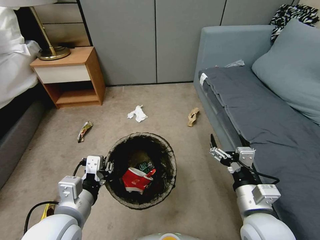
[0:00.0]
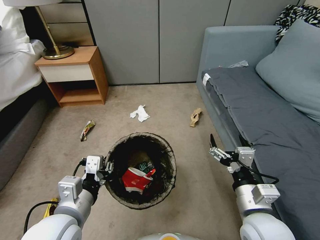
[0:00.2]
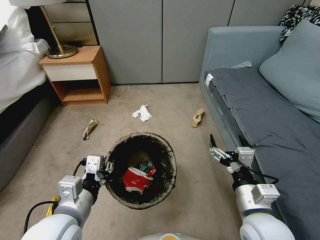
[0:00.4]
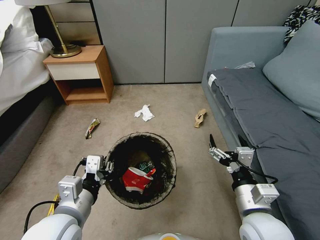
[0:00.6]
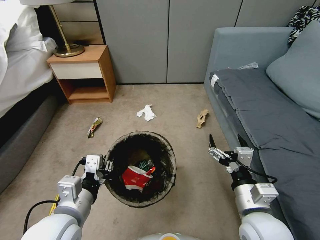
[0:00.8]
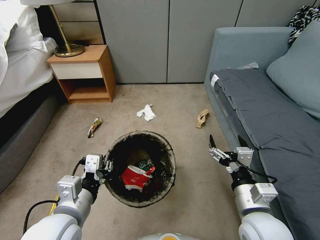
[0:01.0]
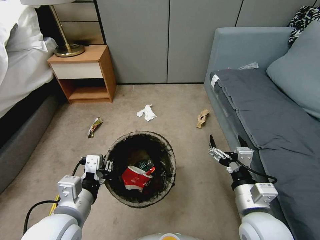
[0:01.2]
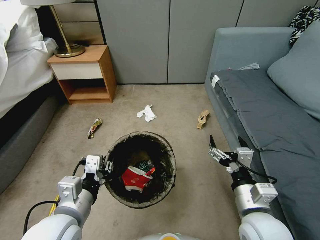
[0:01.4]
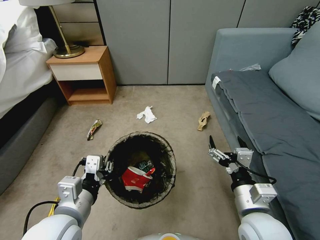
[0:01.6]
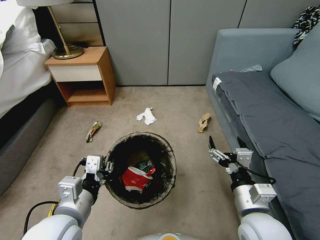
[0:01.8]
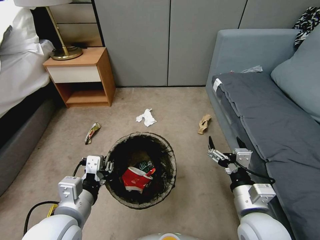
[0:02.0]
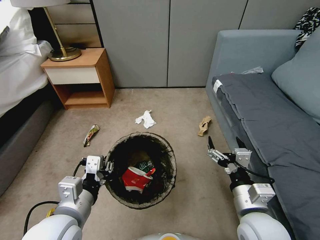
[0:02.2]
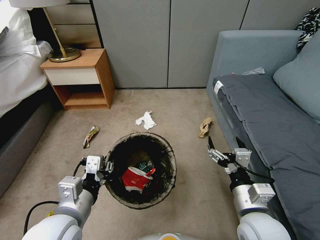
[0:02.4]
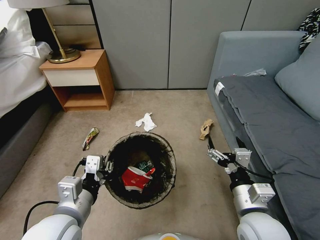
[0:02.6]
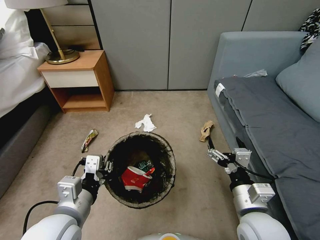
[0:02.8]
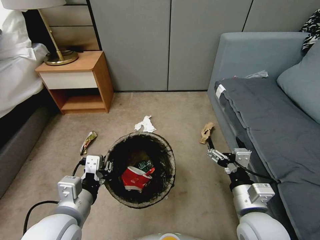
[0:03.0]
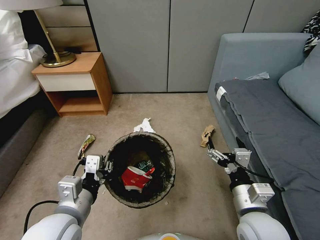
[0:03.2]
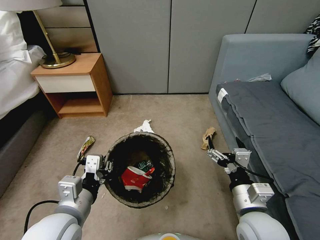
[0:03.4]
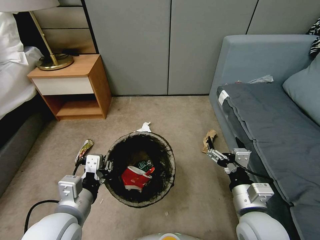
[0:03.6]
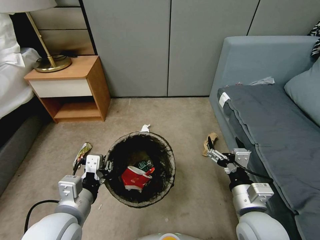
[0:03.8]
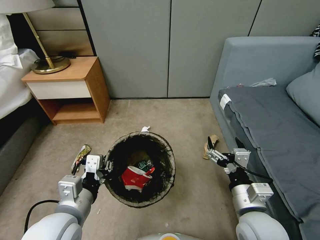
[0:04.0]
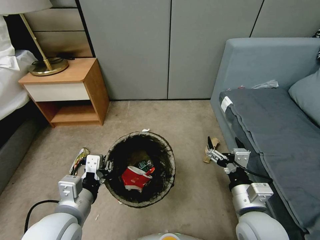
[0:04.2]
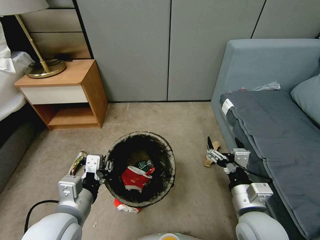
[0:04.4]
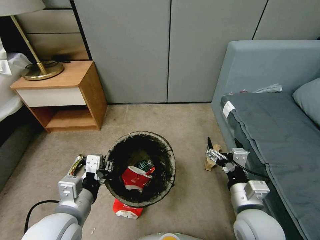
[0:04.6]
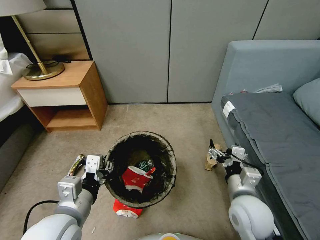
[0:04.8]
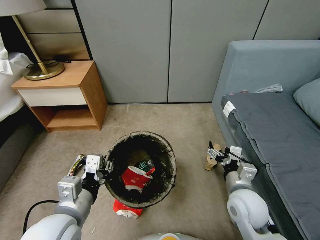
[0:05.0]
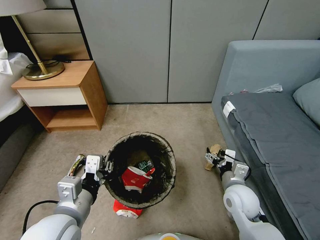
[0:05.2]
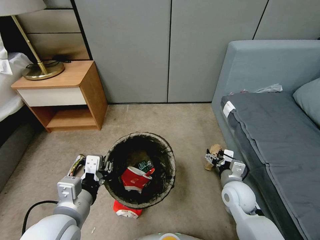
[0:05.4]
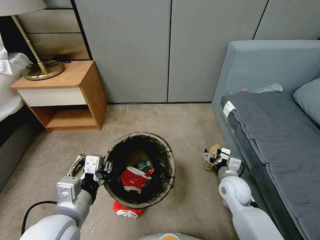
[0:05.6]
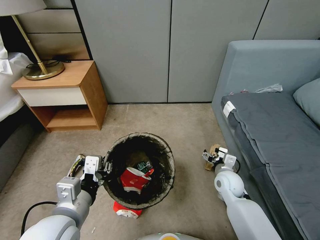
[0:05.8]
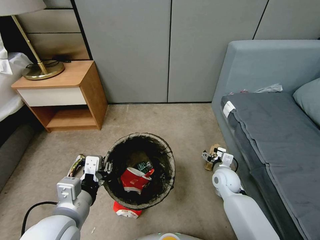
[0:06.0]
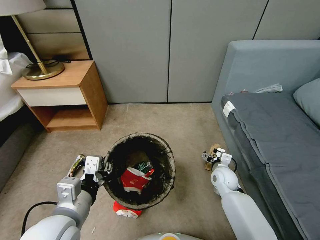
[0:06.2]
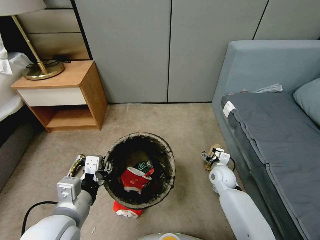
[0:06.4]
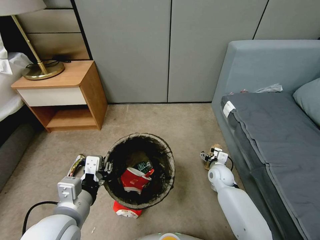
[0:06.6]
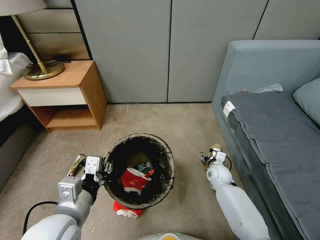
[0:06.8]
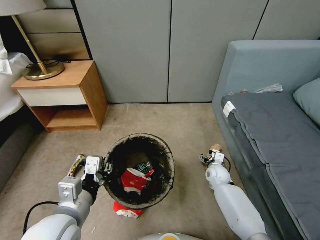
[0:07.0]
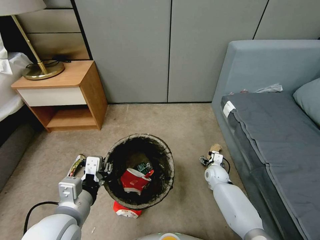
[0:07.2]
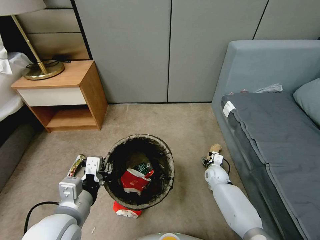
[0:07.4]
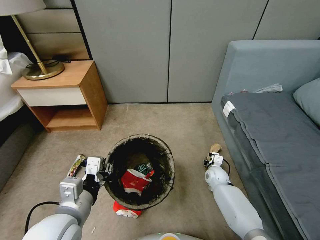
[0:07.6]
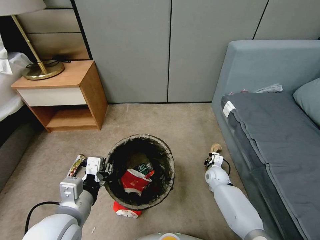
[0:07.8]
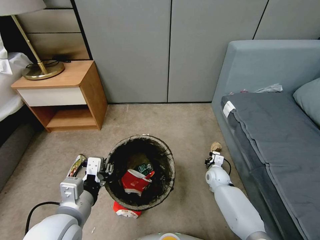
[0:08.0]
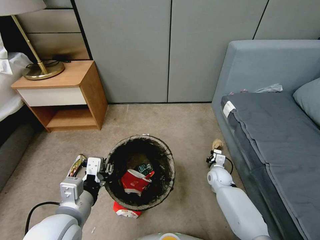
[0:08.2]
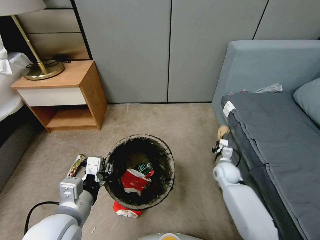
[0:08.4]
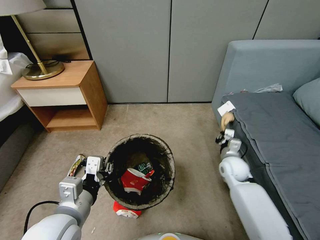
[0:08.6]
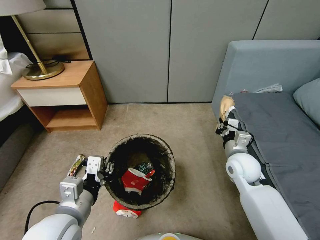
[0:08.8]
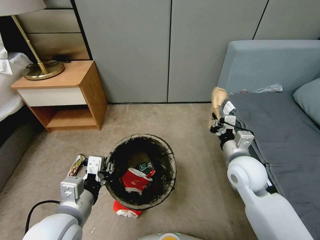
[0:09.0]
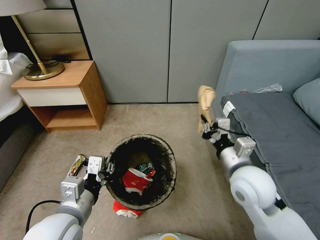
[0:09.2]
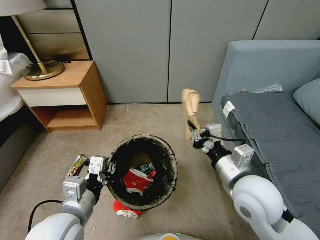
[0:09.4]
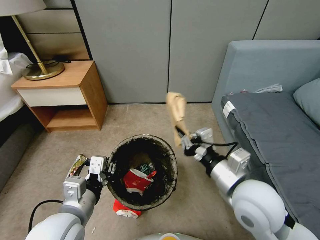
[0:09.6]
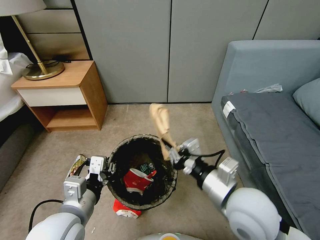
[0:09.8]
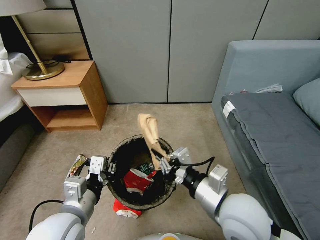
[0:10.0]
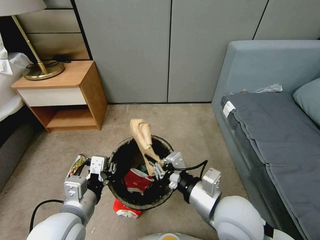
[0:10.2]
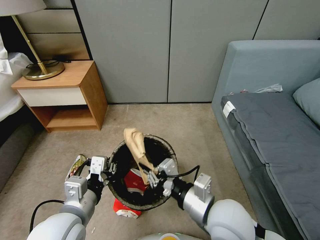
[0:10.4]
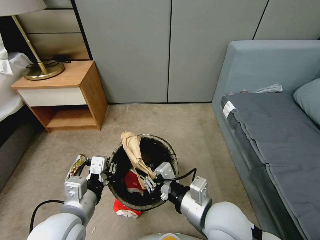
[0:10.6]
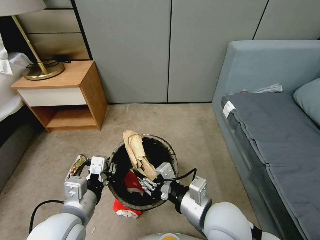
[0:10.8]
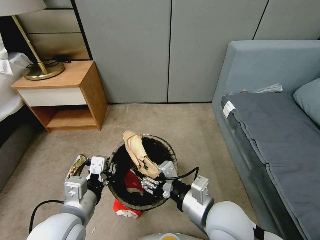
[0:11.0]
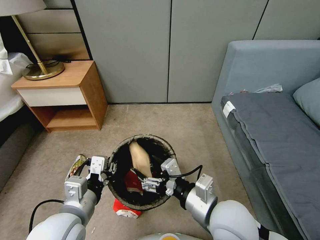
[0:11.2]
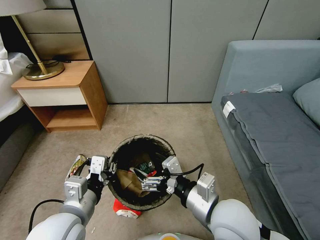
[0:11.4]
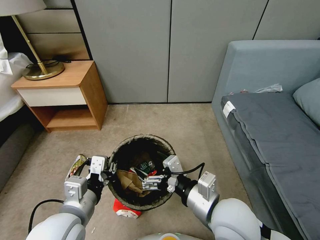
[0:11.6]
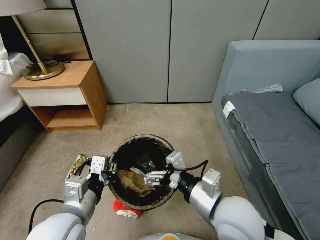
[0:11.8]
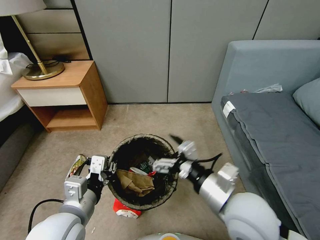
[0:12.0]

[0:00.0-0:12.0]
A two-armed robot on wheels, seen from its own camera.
Task of the whole recording: Pick up the trash bin, then pick up the garbage from the floor and place it into the trash bin.
0:01.6 to 0:03.0: Both grippers stay put.
0:04.4 to 0:06.0: The right gripper shifts about 20 cm forward and downward.
0:06.0 to 0:07.6: The right gripper is displaced downward and forward by roughly 15 cm, and closes.
0:07.6 to 0:09.0: The right gripper heads upward, covering roughly 30 cm, and closes.
0:09.0 to 0:10.4: The right gripper shifts roughly 15 cm backward and to the left.
0:10.4 to 0:12.0: The right gripper opens its fingers.

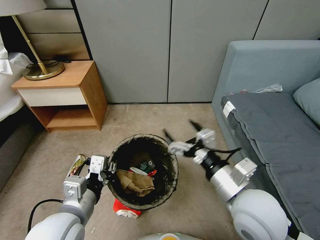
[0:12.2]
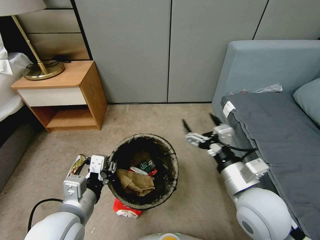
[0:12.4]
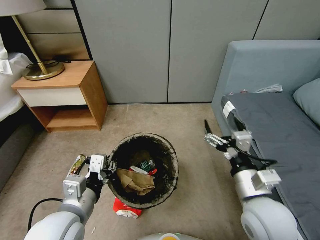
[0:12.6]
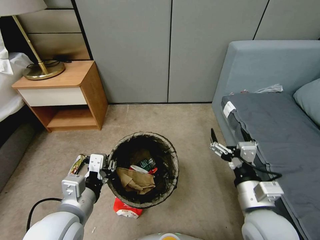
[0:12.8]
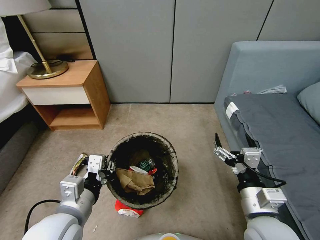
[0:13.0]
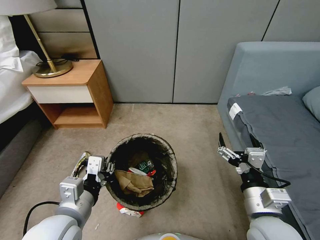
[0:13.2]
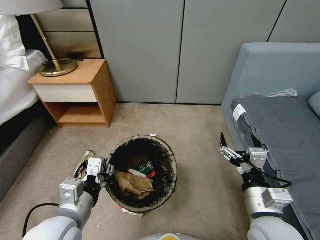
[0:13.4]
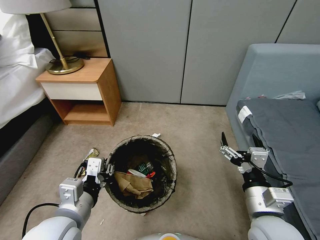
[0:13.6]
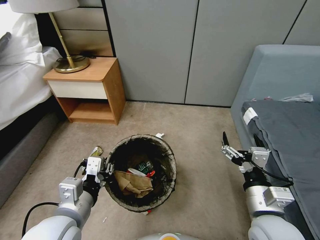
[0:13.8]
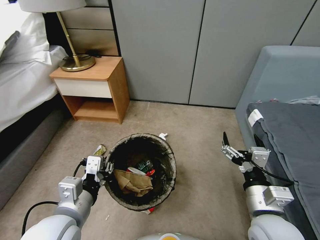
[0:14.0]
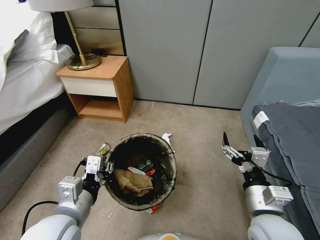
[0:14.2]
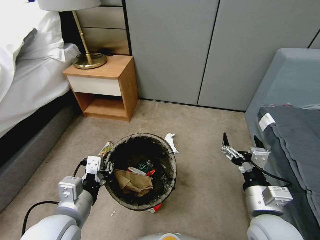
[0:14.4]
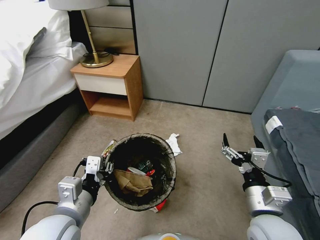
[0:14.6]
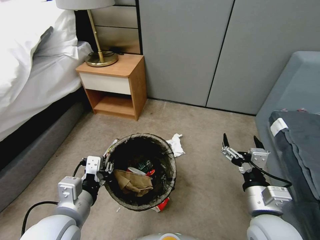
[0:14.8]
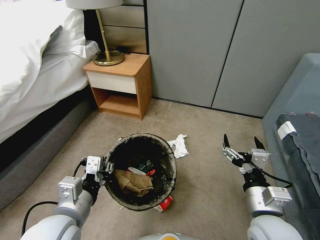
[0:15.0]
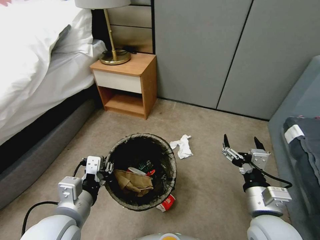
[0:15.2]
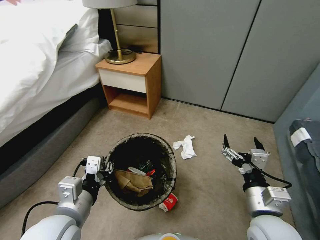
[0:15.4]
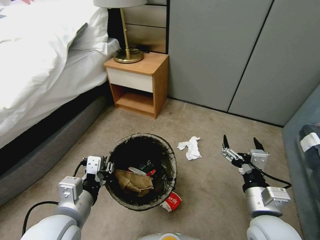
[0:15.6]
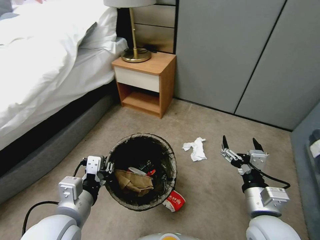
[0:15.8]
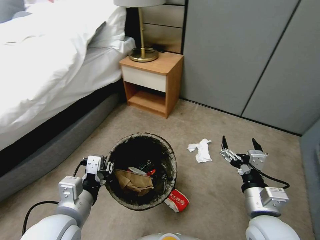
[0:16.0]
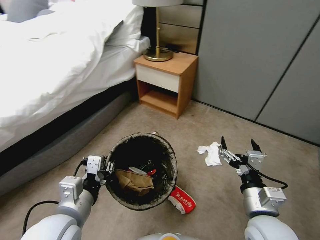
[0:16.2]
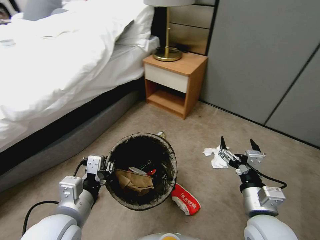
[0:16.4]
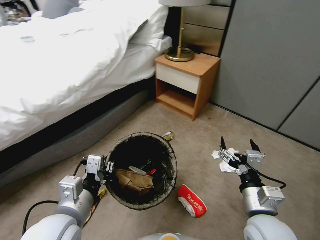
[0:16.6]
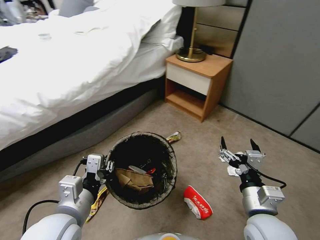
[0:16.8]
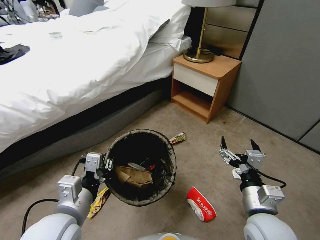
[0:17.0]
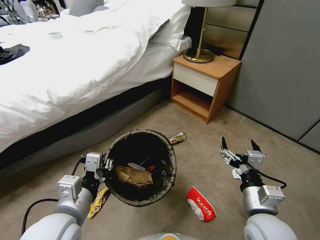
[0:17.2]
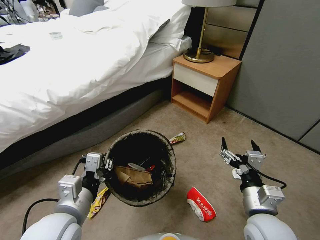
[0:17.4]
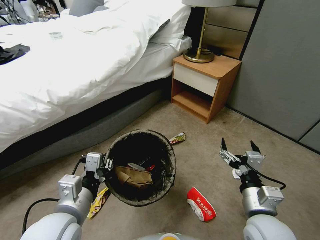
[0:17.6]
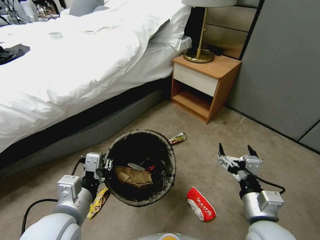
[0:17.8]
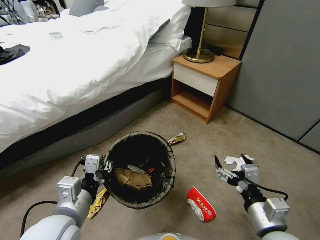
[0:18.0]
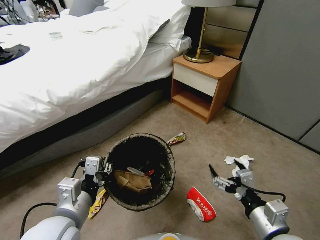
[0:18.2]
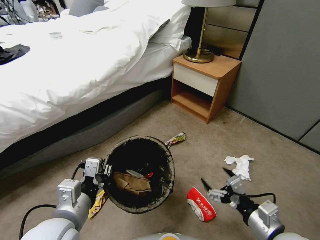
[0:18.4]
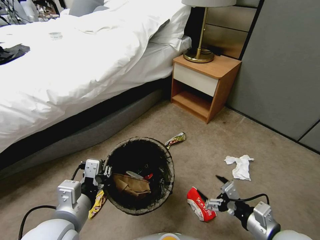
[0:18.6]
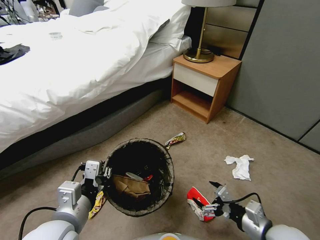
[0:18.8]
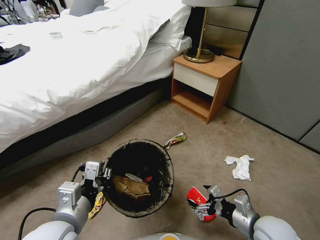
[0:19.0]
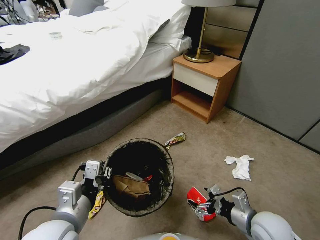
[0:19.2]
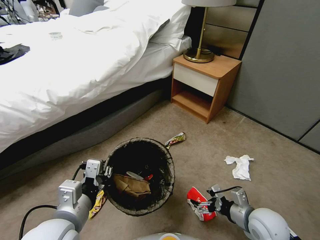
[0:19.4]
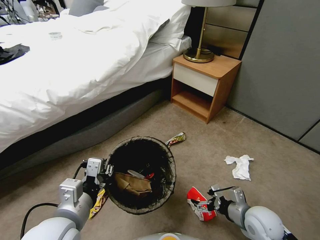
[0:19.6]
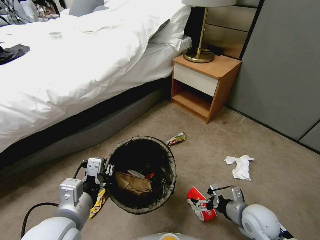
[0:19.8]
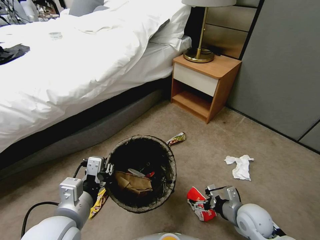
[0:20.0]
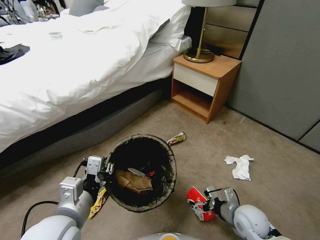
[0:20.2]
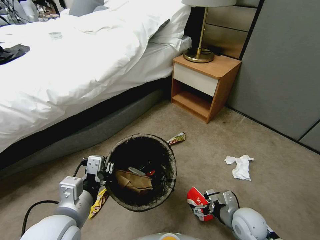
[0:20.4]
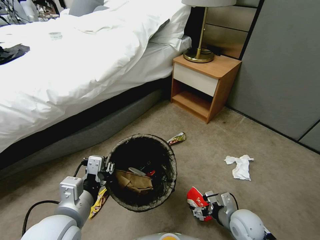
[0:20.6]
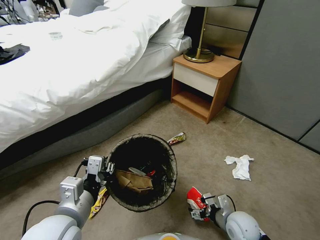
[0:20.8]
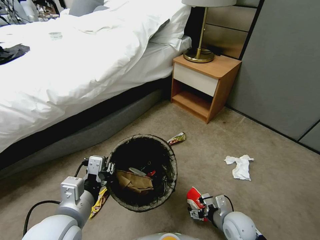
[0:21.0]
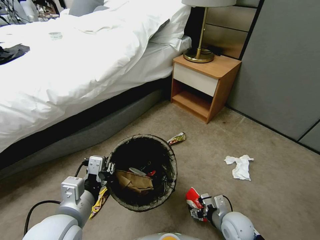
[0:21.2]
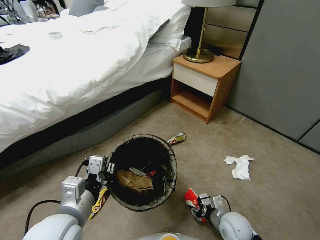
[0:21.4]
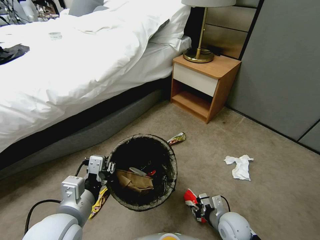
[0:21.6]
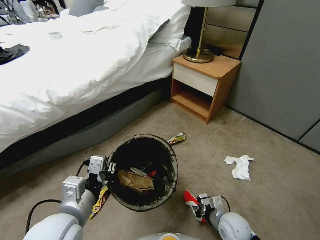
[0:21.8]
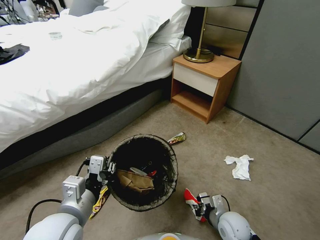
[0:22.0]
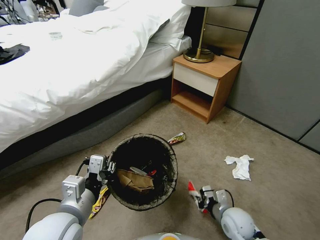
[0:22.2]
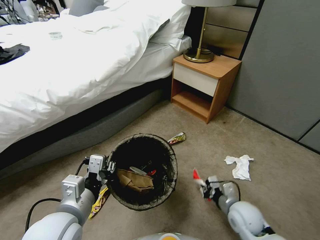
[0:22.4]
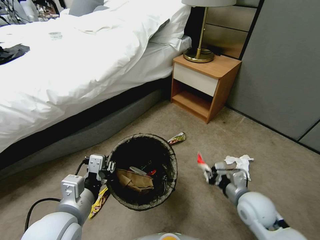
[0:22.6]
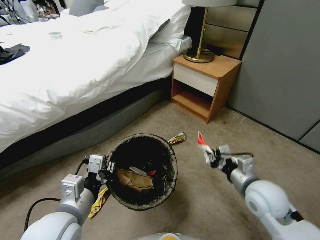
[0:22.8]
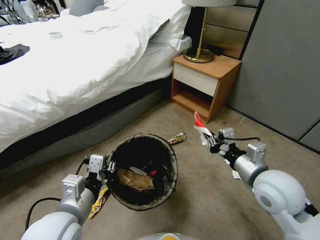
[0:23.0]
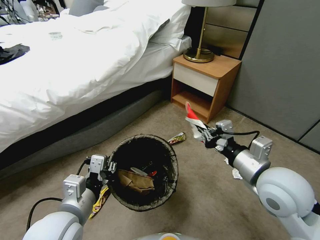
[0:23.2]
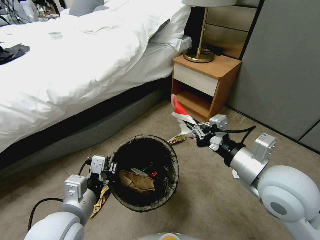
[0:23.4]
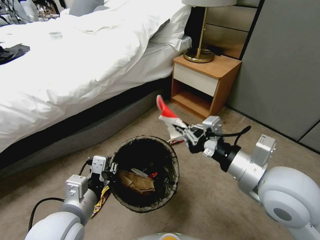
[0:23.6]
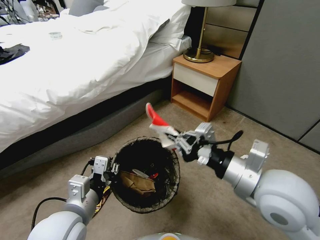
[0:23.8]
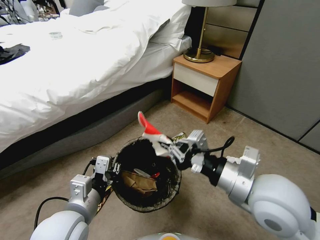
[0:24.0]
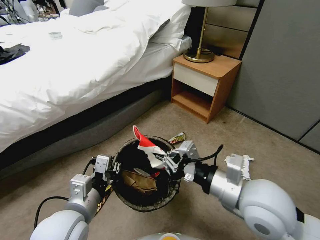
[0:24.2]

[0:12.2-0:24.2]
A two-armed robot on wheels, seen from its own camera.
Task of the whole recording: Pick up the trash bin, then pick up the garbage from the floor and place it into the trash bin.
0:12.2 to 0:13.8: The right gripper shifts roughly 10 cm downward and to the right.
0:16.6 to 0:18.2: The right gripper shifts by about 5 cm.
0:18.2 to 0:19.8: The right gripper heads downward and forward, covering approximately 15 cm.
0:19.8 to 0:21.2: The right gripper goes some 5 cm downward.
0:21.2 to 0:22.6: The right gripper travels upward by approximately 10 cm, and closes up.
0:22.6 to 0:24.2: The right gripper goes roughly 20 cm upward and to the left.
